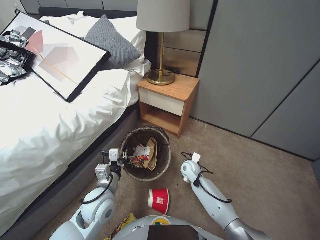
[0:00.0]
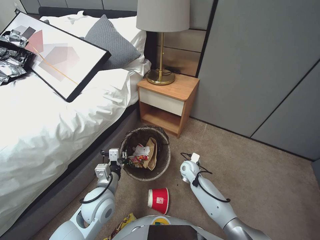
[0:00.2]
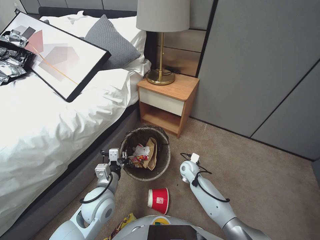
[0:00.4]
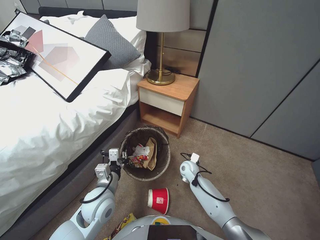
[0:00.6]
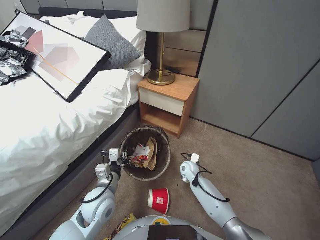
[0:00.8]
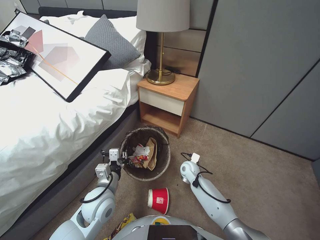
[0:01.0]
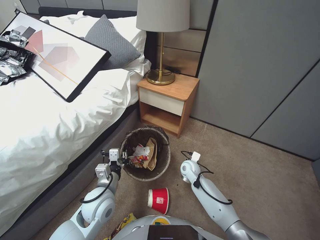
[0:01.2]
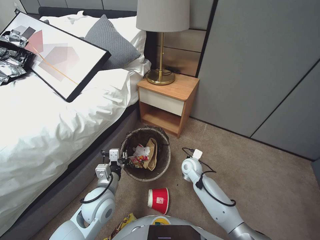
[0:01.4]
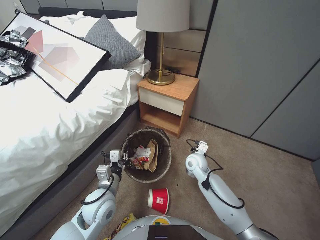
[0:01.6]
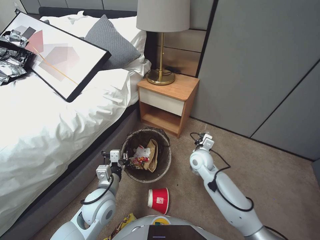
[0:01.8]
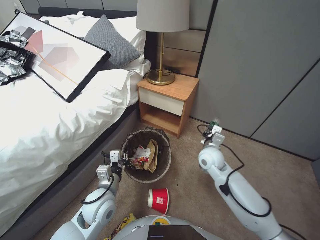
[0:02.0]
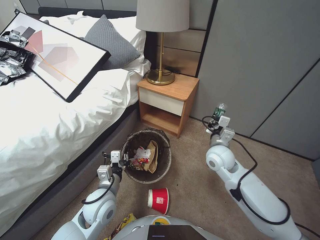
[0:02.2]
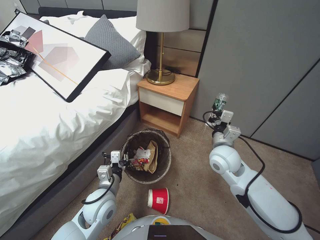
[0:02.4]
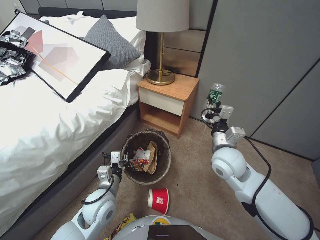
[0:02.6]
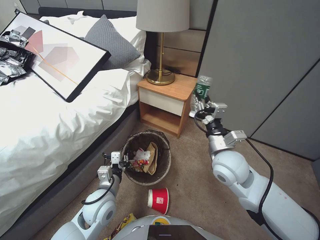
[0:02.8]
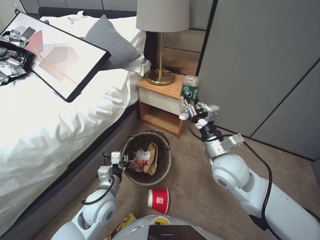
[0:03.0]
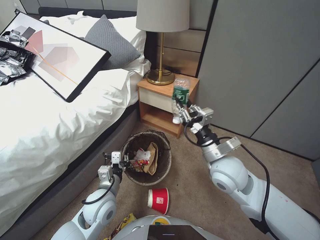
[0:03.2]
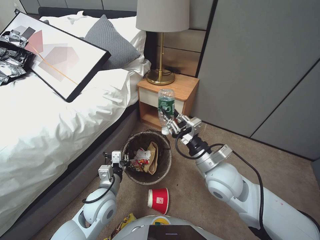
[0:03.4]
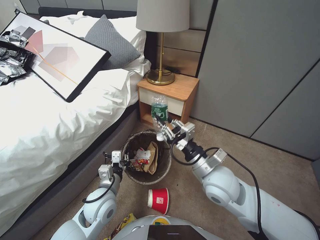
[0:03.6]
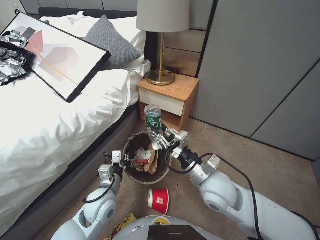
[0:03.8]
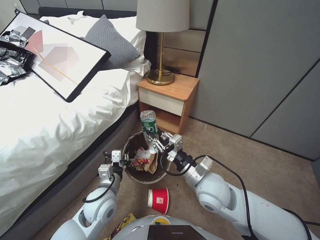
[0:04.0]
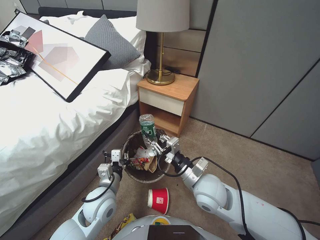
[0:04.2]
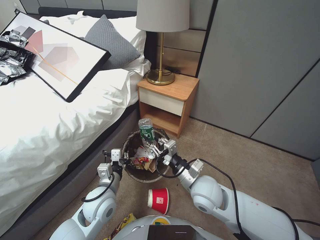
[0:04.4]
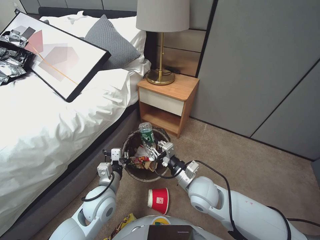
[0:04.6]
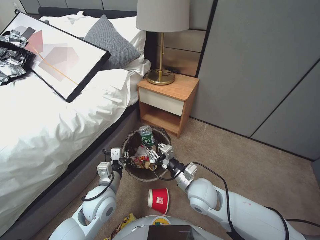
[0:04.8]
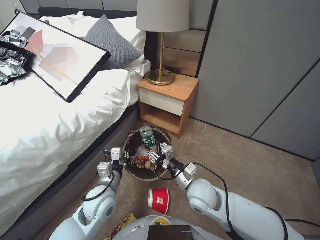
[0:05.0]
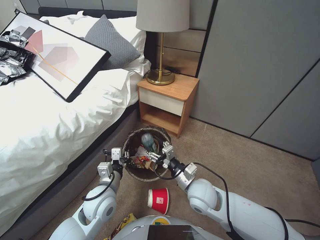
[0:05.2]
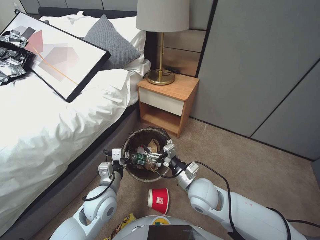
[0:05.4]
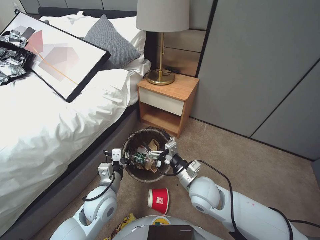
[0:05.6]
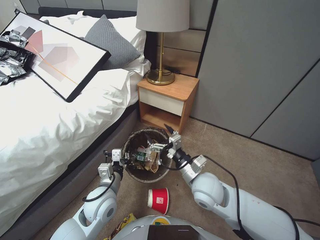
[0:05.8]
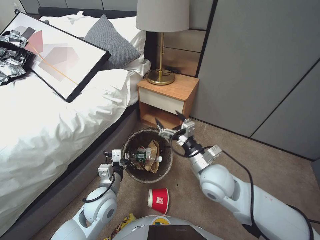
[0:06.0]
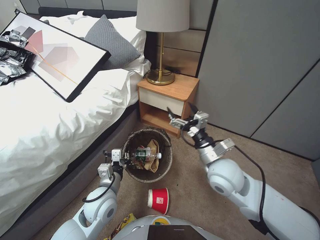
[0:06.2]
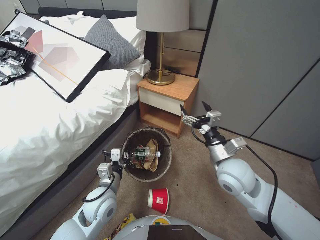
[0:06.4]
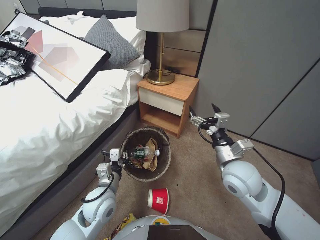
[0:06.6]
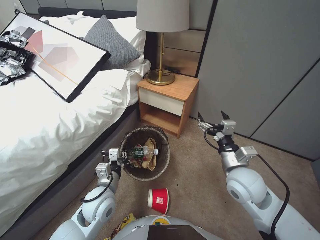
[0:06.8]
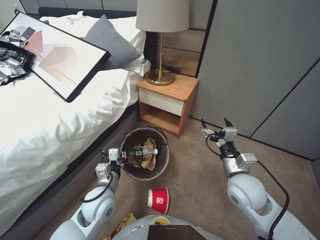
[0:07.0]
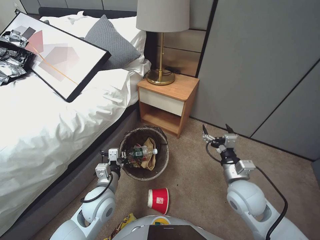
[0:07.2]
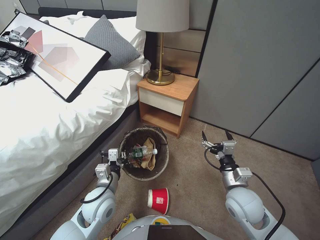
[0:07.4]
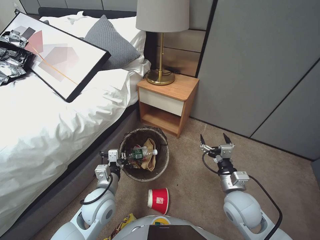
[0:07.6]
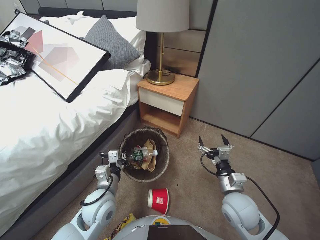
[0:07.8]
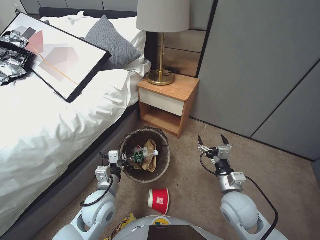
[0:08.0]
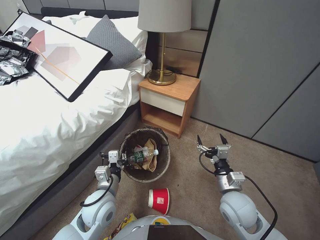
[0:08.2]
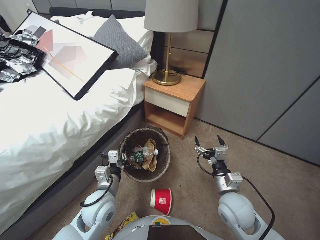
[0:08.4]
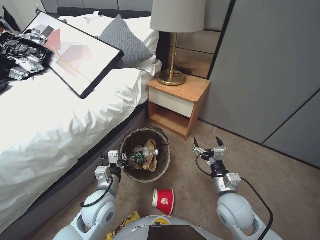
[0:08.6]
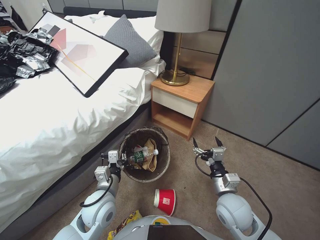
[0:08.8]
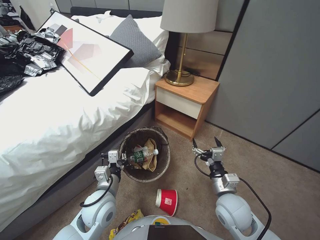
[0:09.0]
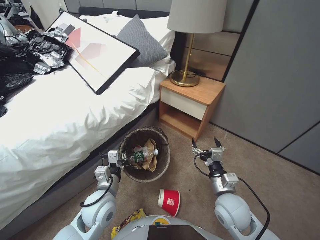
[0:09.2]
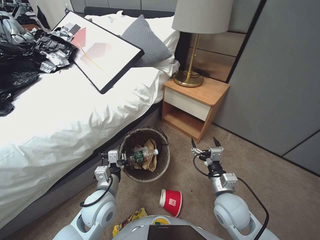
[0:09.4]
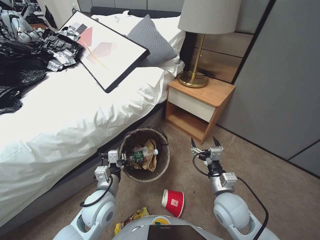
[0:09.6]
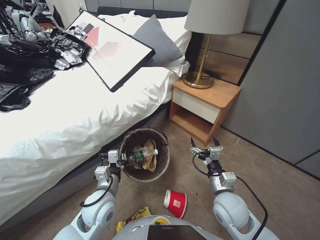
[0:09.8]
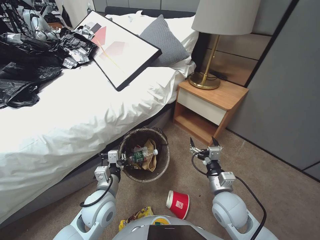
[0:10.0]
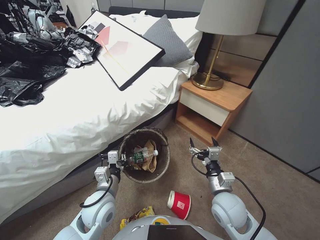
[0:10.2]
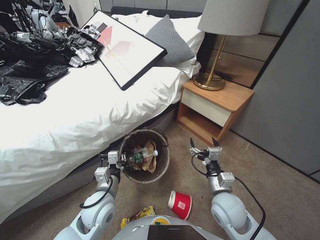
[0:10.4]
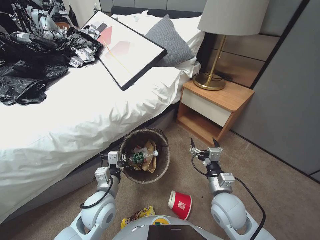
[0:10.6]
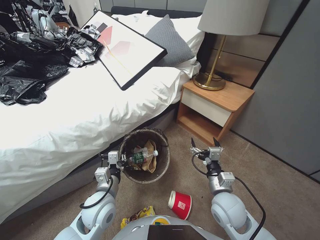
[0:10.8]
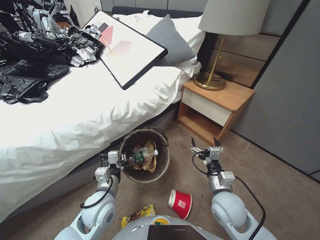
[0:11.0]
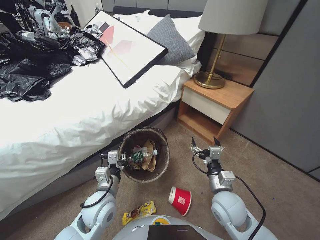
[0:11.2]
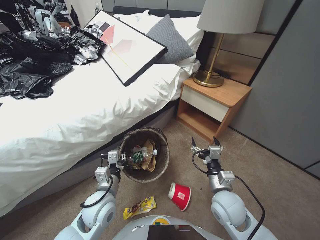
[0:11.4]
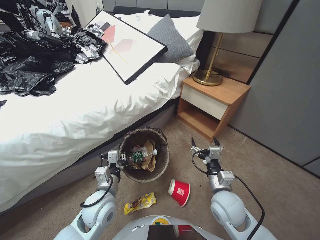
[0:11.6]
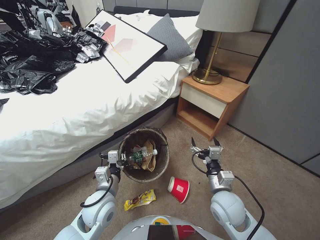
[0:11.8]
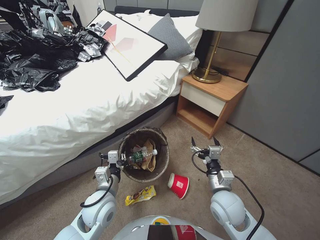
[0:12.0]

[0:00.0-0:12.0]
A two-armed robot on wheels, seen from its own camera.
Task of the whole recording: Pick up the trash bin, then pick up the garbage from the floor and place it into the trash bin.
0:00.0 to 0:01.6: The right gripper shifts some 5 cm upward, and closes its fingers.
0:01.6 to 0:03.0: The right gripper is displaced upward and backward by approximately 25 cm.
0:03.0 to 0:04.4: The right gripper heads downward and to the left, covering roughly 10 cm.
0:04.4 to 0:06.0: The right gripper opens.
0:06.0 to 0:07.6: The right gripper is displaced to the right by some 10 cm.
0:07.6 to 0:09.0: The right gripper goes approximately 5 cm downward.

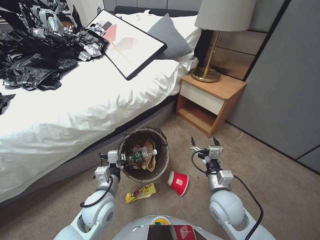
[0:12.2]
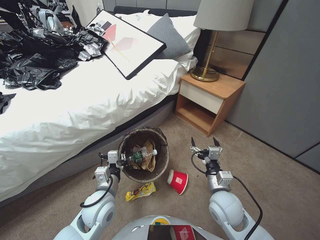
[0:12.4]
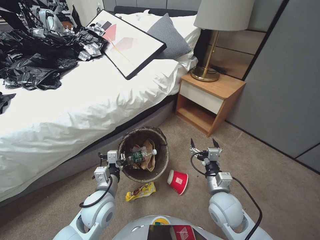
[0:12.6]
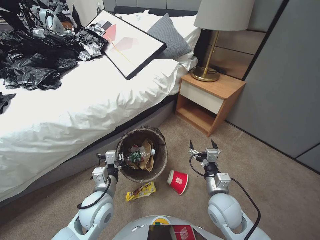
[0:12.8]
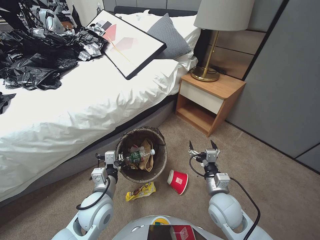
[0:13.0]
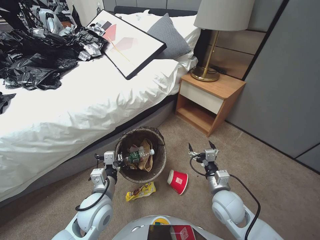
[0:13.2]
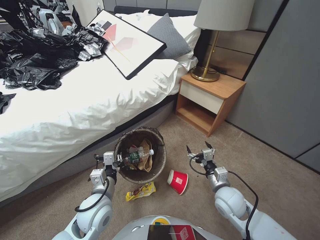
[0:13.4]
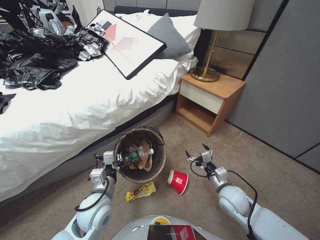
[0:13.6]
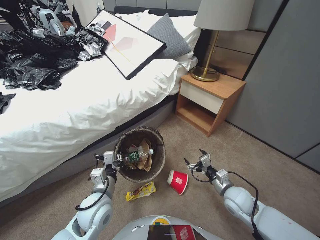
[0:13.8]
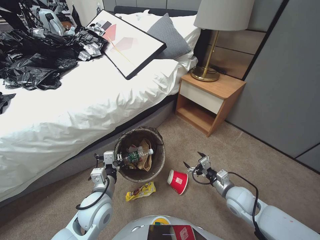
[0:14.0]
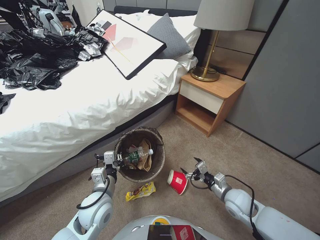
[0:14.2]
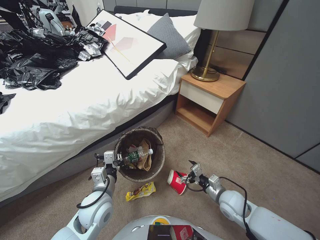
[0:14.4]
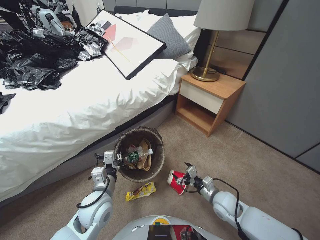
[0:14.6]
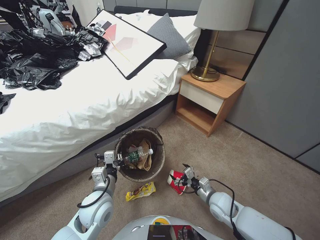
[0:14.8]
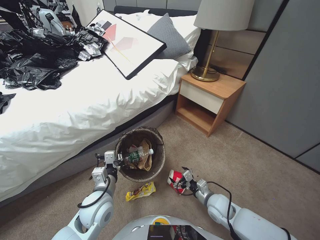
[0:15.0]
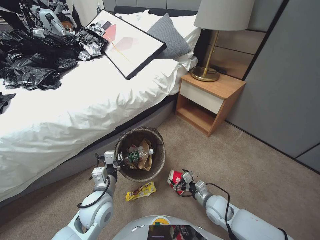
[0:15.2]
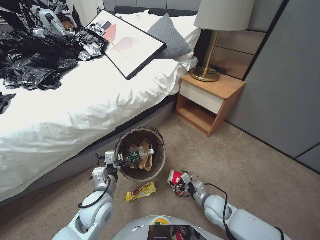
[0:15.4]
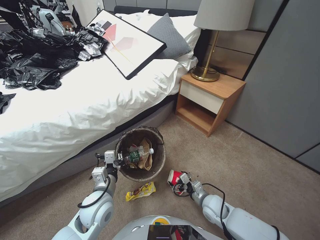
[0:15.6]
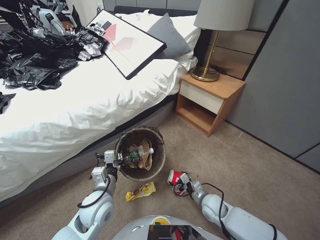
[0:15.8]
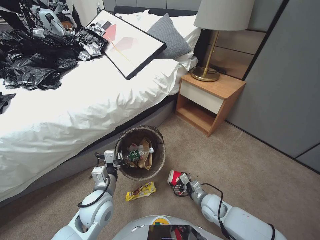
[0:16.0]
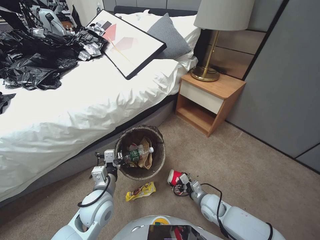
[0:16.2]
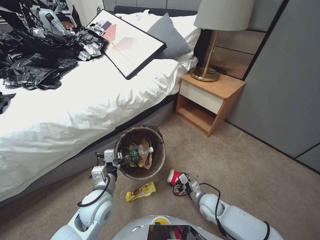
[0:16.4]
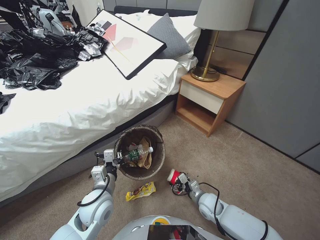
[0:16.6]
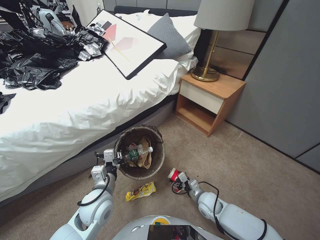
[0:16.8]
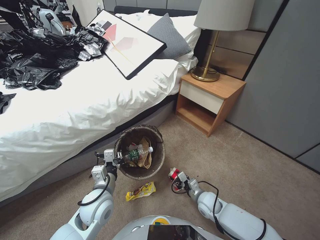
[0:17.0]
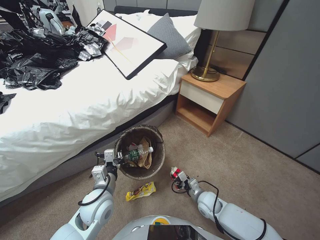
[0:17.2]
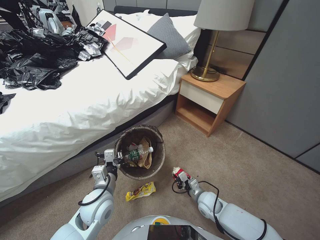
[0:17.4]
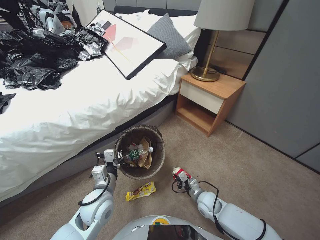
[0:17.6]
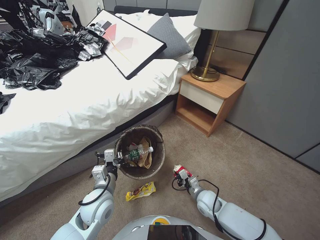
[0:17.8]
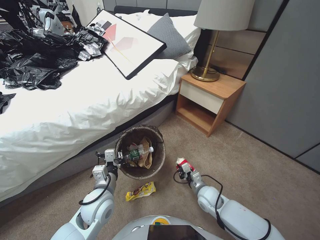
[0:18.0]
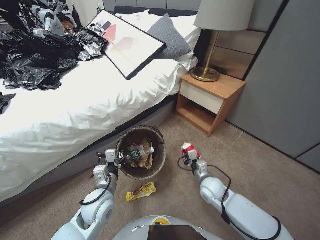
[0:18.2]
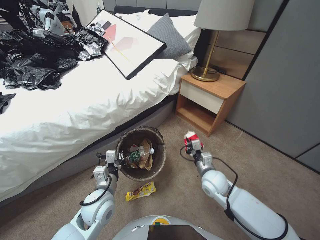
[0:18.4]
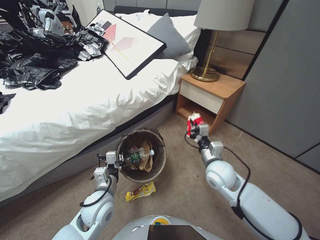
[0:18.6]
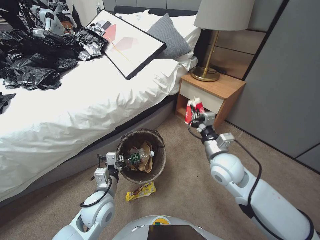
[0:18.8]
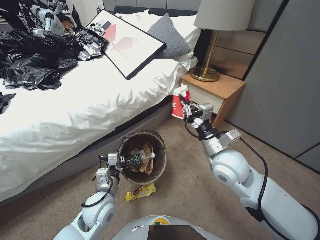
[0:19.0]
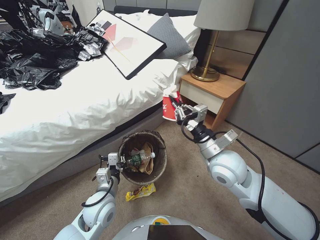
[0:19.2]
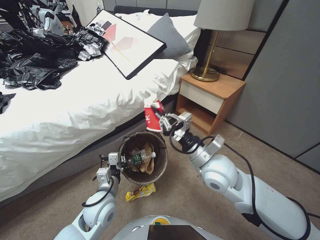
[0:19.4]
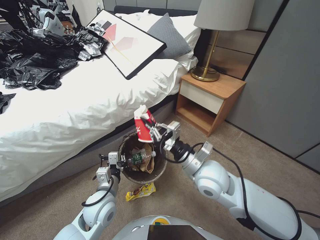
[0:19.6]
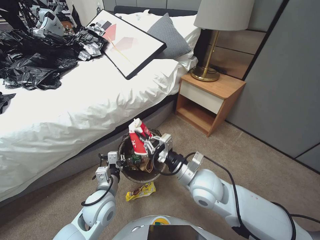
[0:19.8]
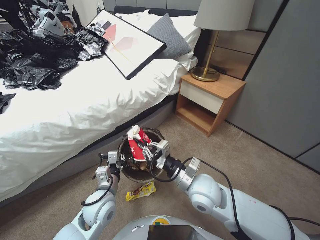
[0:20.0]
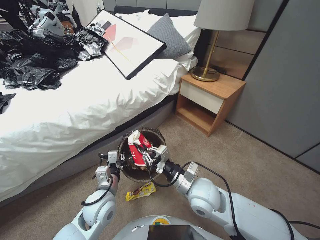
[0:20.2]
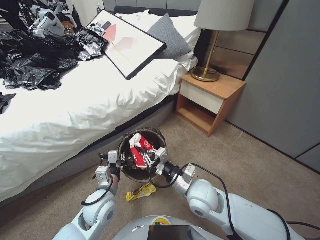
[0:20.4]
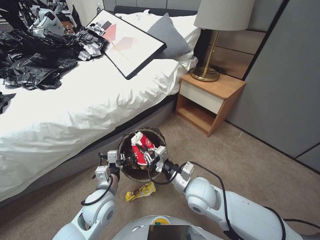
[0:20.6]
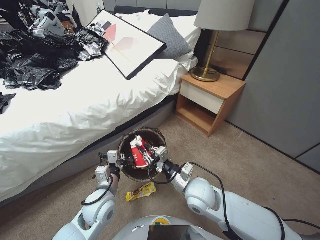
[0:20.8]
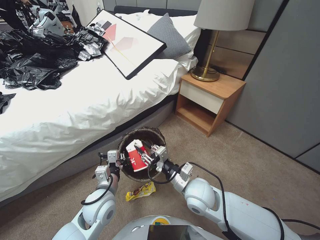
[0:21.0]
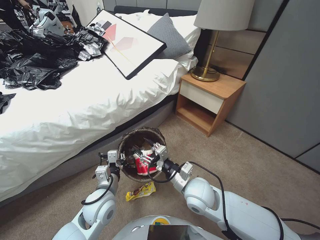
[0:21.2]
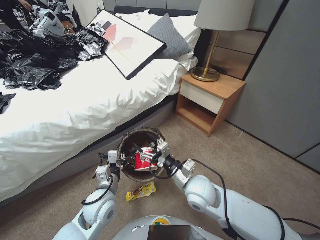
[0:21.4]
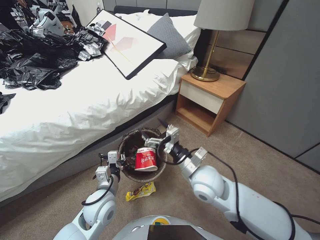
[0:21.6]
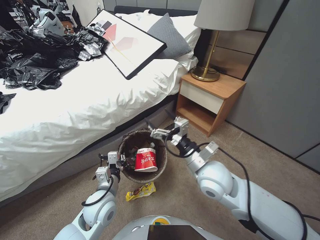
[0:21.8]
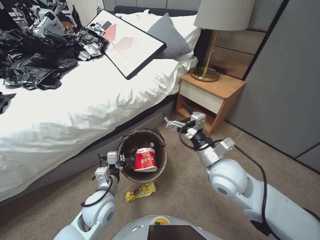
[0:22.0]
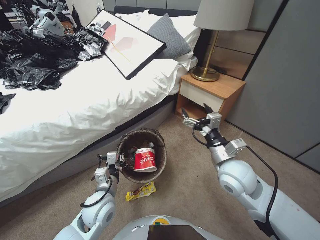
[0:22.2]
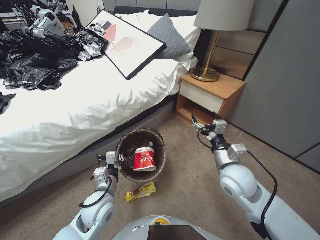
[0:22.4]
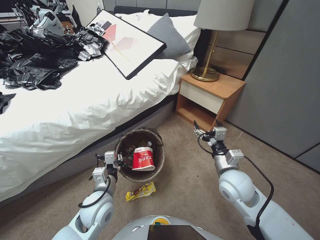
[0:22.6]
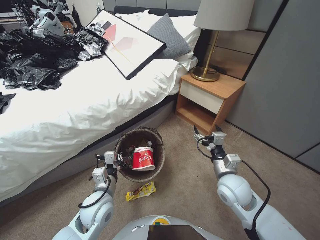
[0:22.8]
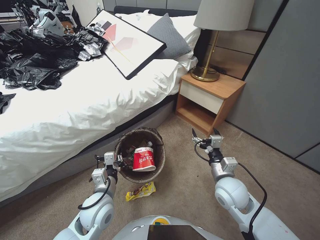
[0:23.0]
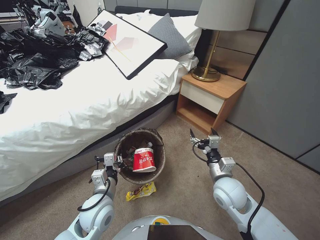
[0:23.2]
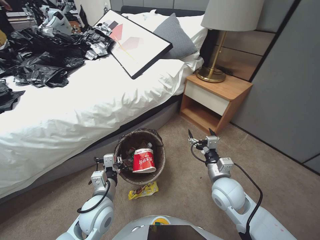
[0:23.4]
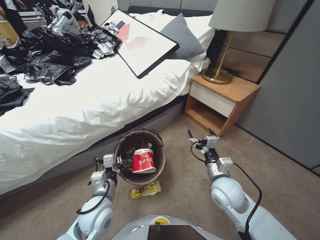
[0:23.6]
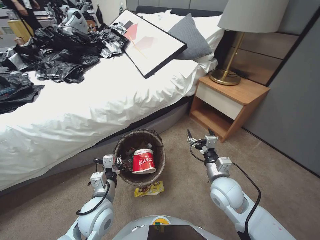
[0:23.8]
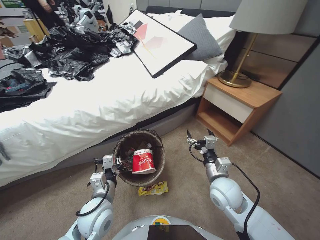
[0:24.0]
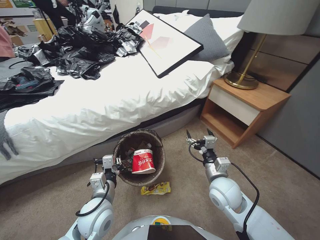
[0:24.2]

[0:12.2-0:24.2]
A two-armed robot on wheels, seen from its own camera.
Task of the whole recording: Pick up the trash bin, then pick up the garbage from the floor and place it into the trash bin.
0:12.2 to 0:13.8: The right gripper heads to the right and downward, covering about 10 cm.
0:13.8 to 0:15.2: The right gripper shifts some 10 cm downward.
0:15.2 to 0:16.6: The grippers move only a little.
0:16.6 to 0:18.2: The right gripper closes.
0:18.2 to 0:19.8: The right gripper heads upward, covering roughly 25 cm.
0:19.8 to 0:21.2: The right gripper shifts approximately 5 cm downward, and opens.
0:21.2 to 0:22.6: The right gripper moves to the right, roughly 10 cm, and opens.
0:22.6 to 0:24.2: The right gripper moves downward, about 5 cm.
